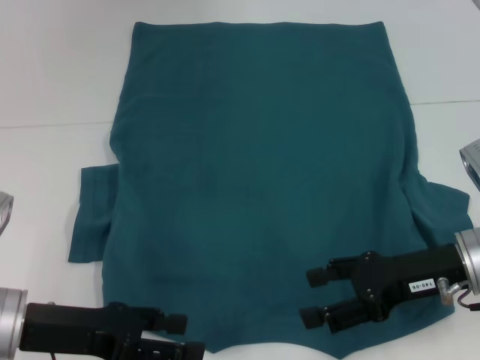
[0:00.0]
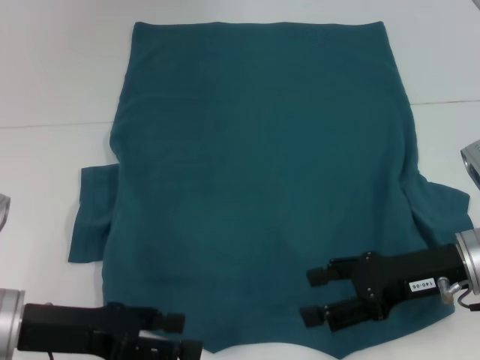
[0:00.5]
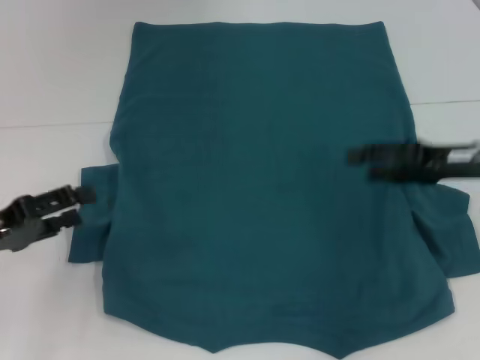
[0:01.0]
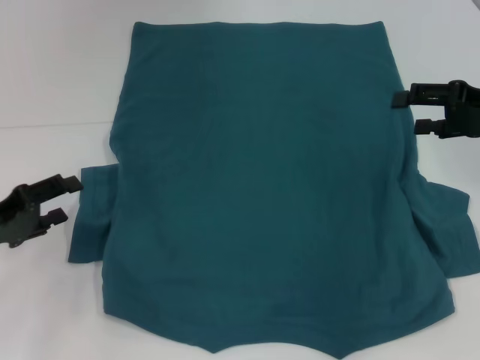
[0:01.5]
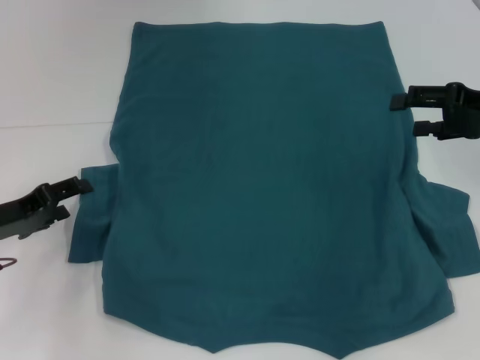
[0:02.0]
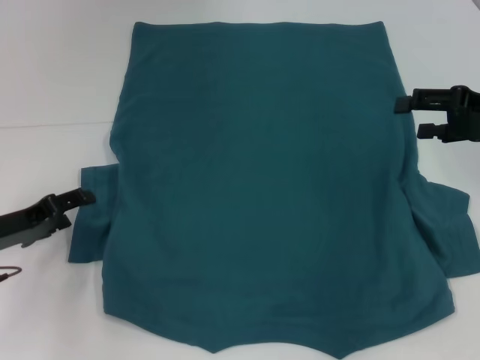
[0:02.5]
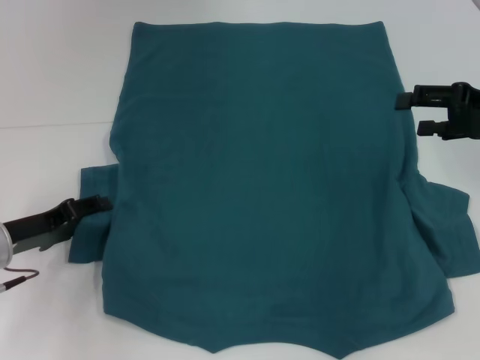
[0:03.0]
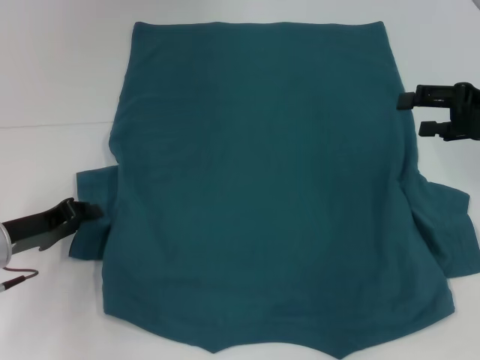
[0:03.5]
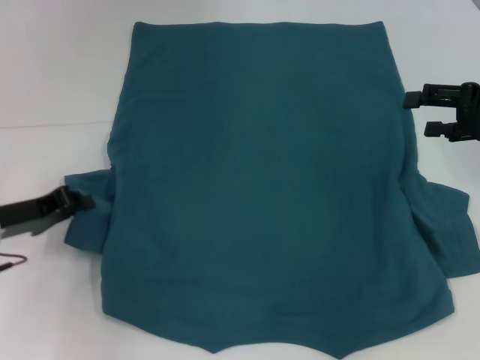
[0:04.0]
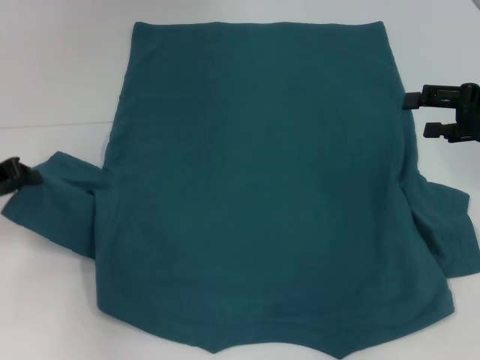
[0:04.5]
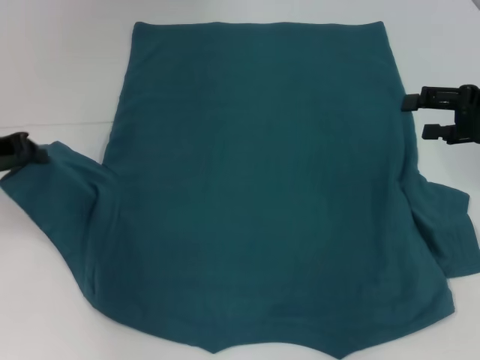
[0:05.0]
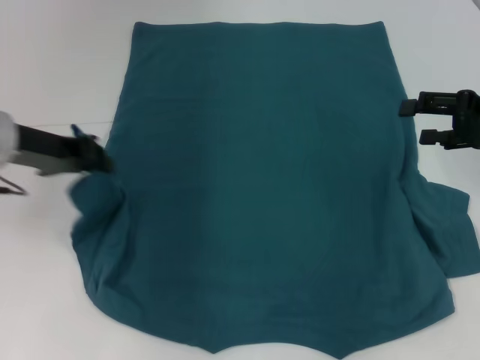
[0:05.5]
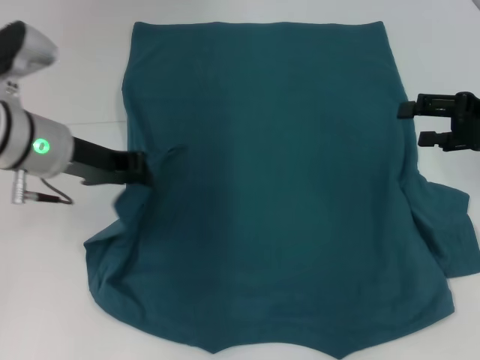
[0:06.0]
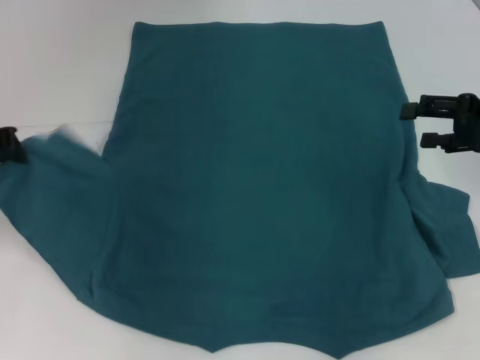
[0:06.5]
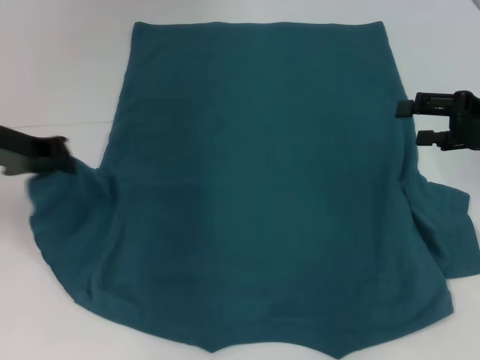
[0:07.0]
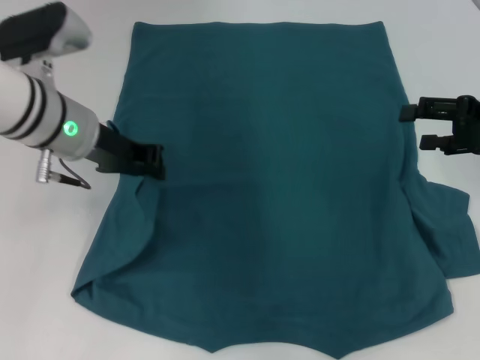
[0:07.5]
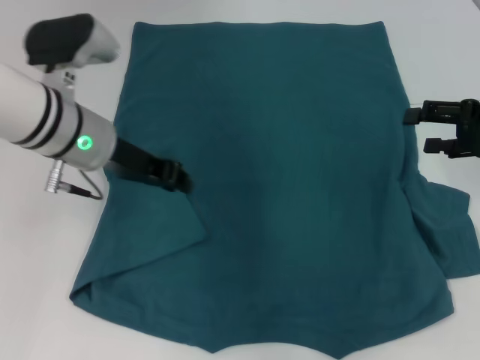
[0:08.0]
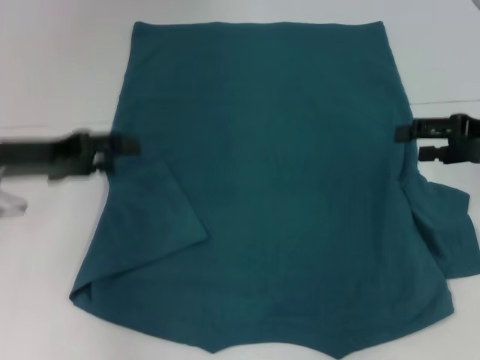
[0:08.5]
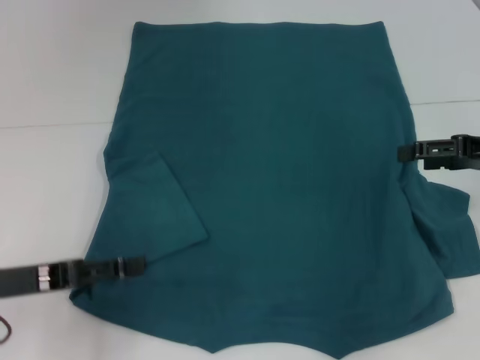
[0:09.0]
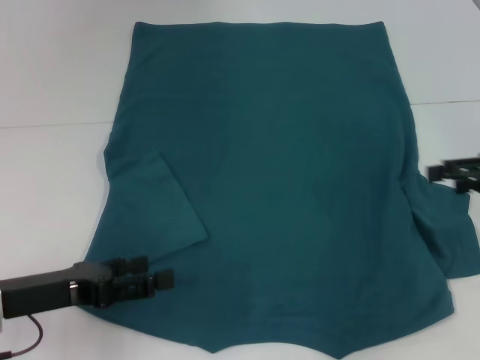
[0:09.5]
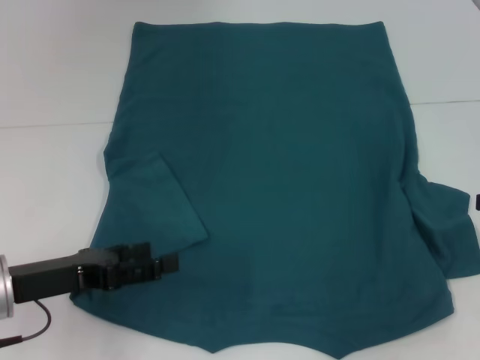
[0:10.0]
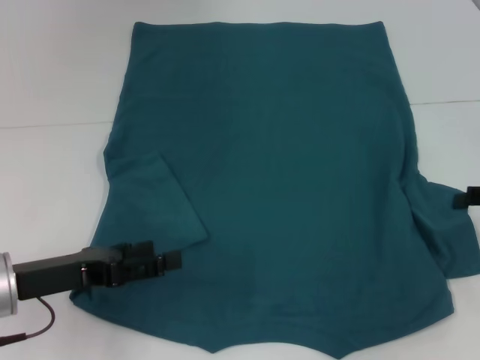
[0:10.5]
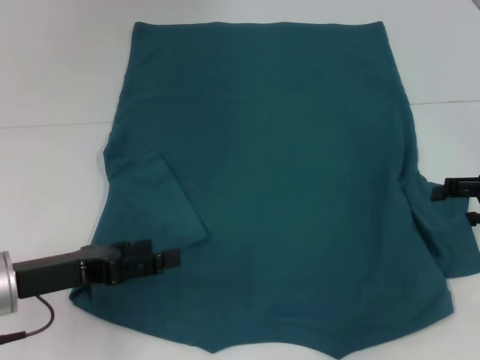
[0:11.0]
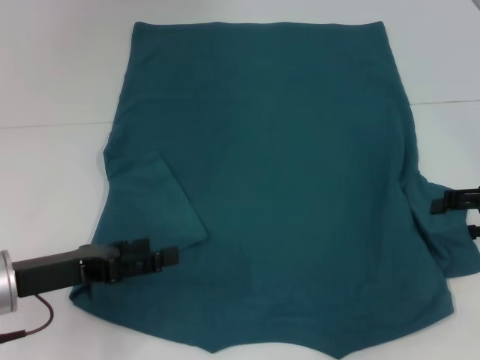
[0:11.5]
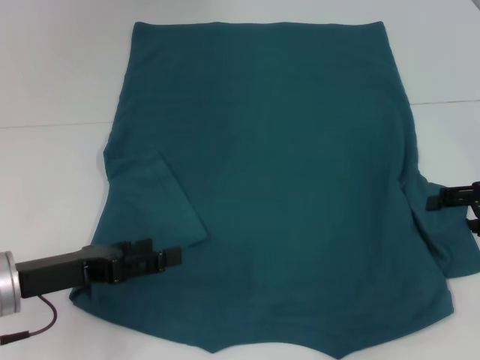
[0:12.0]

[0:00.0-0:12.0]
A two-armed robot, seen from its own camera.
Step, 0:00.0 to 0:07.5: Fold the bottom left sleeve with your left hand.
0:00.0 to 0:02.0: The right gripper shifts approximately 15 cm to the right, forward and upward; the left gripper goes about 10 cm forward and to the left.
0:02.0 to 0:04.0: The left gripper closes.
0:04.0 to 0:06.0: The left gripper is displaced upward and to the right by some 15 cm.
0:06.0 to 0:08.0: The left gripper goes to the left and returns, roughly 10 cm each way.
0:08.0 to 0:10.0: The right gripper shifts approximately 10 cm to the right and backward, while the left gripper shifts about 20 cm backward, to the left and downward, and opens up.
0:10.0 to 0:12.0: The right gripper changes place by some 5 cm.

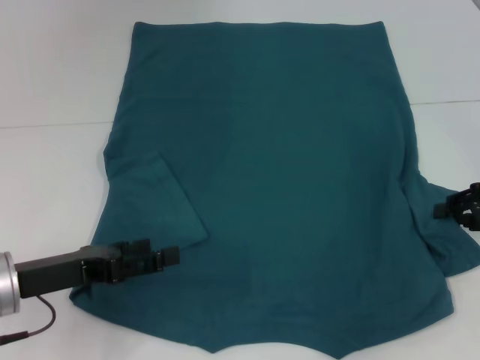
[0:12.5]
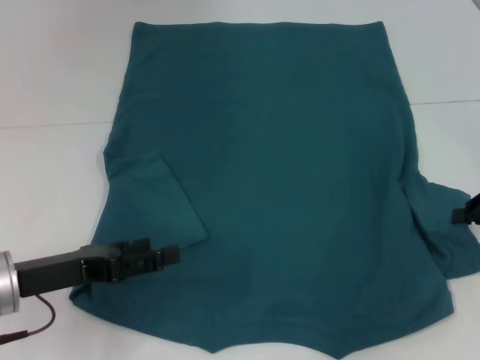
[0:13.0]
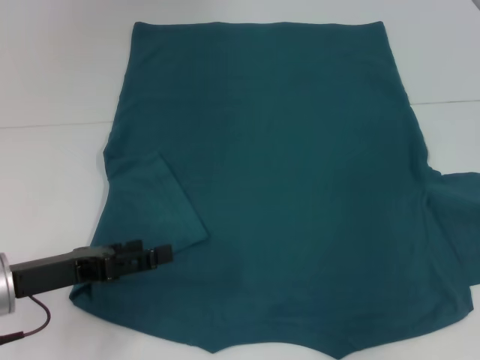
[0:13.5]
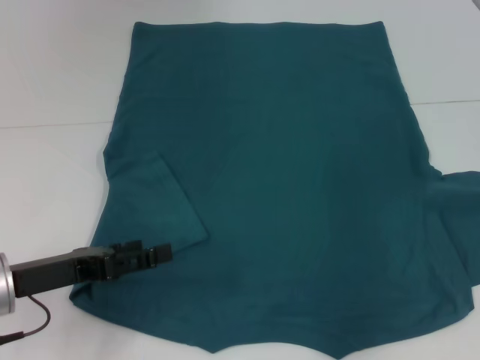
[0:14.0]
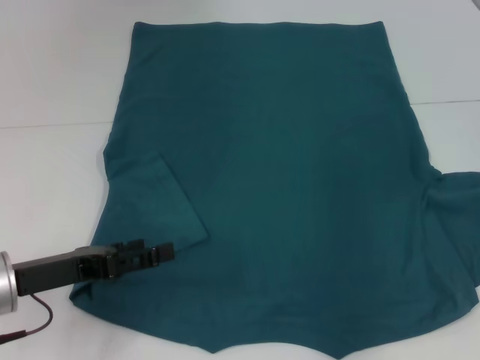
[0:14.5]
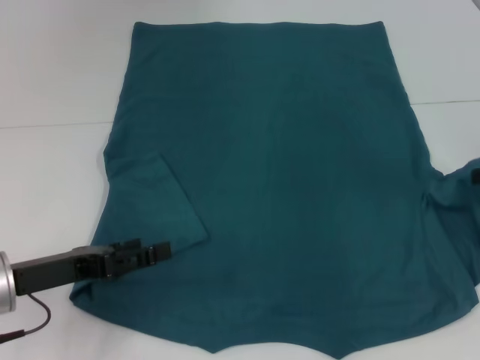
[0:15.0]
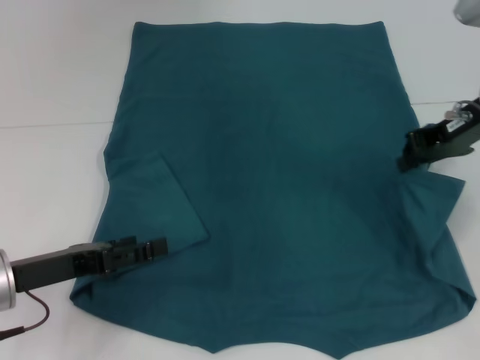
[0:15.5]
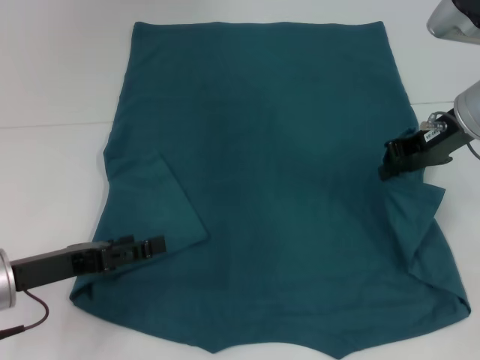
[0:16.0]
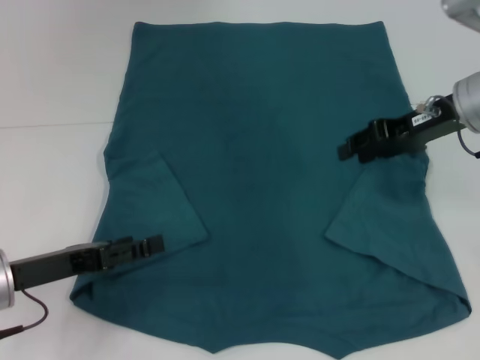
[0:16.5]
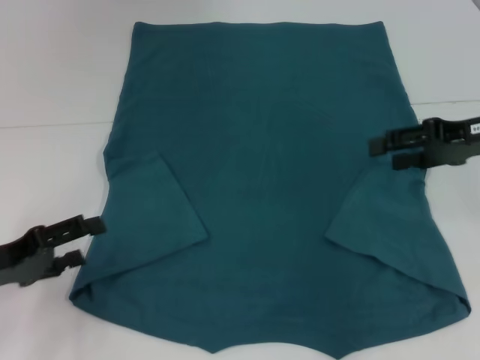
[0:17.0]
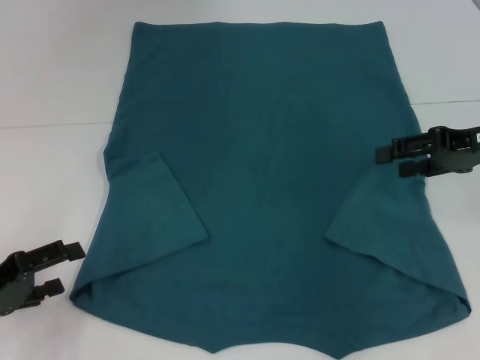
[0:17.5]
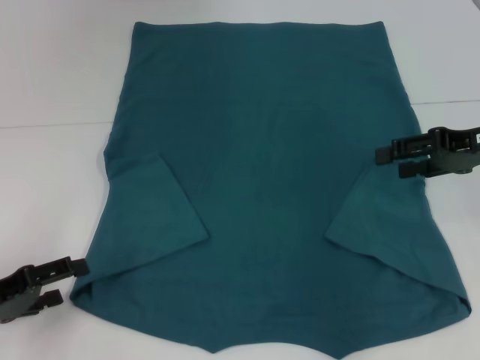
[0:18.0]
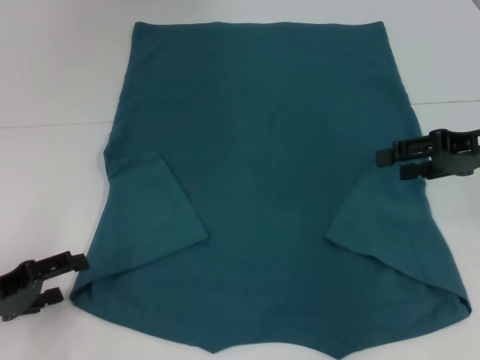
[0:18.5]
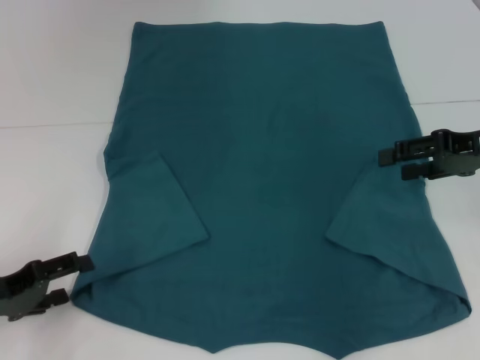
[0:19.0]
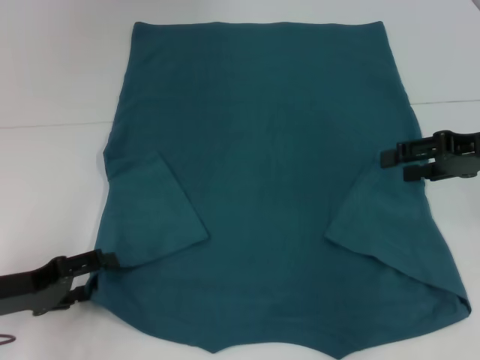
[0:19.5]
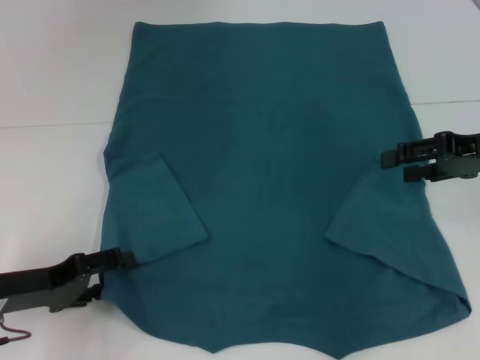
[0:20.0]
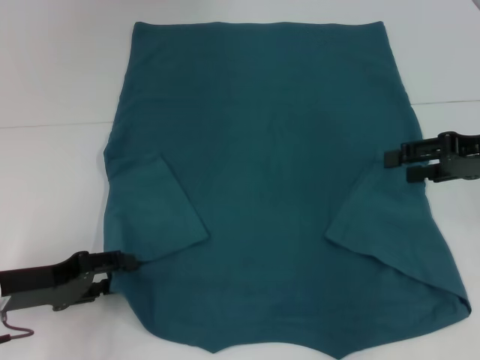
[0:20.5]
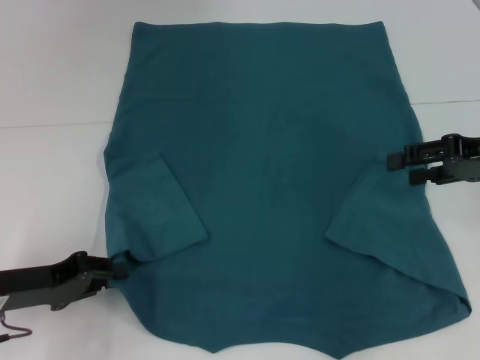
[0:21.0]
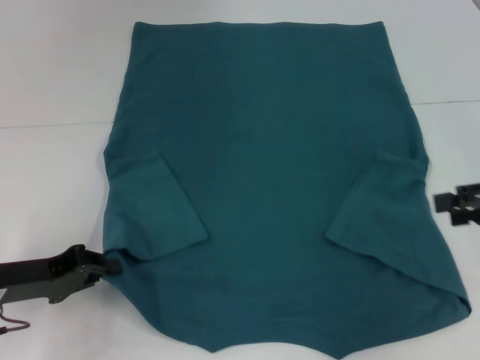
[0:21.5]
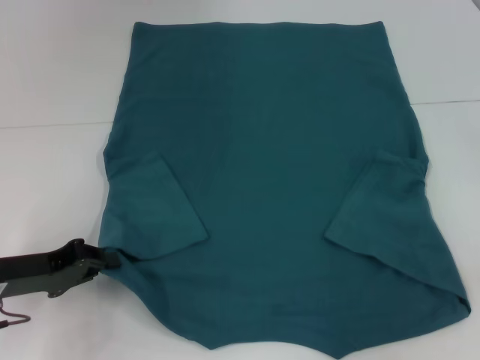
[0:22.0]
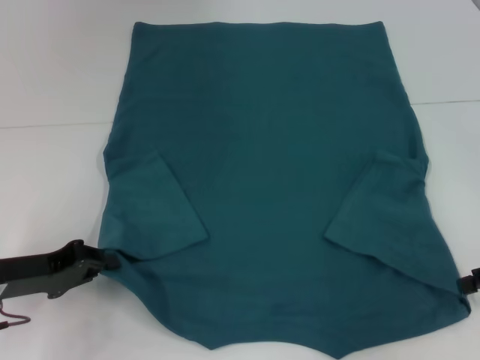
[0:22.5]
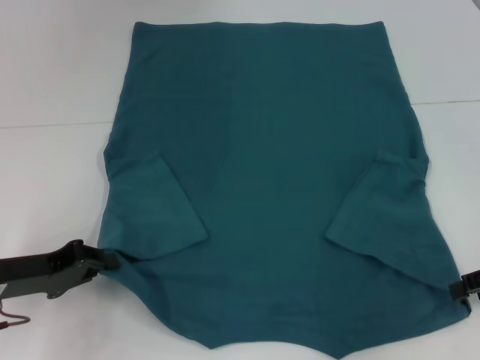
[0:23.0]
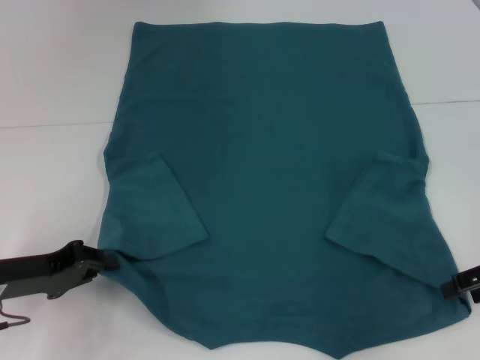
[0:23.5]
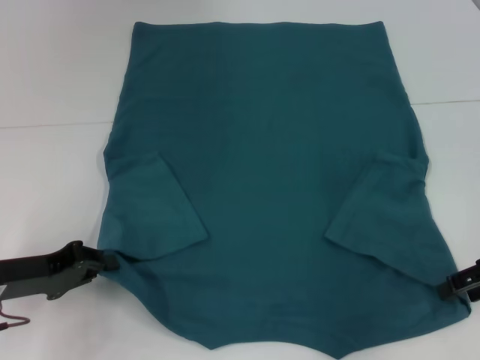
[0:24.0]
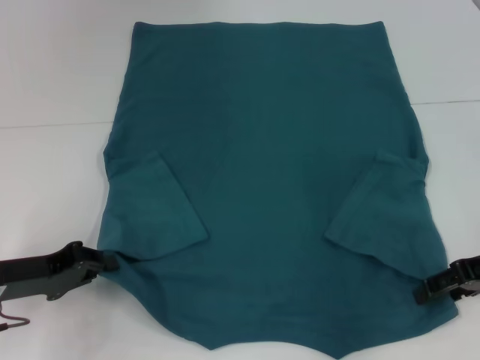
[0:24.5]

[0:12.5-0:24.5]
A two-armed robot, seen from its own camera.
Step, 0:12.5 to 0:16.0: Fold the bottom right sleeve to the right.
Step, 0:16.5 to 0:21.0: Grab the bottom left corner with your left hand.
0:12.5 to 0:14.5: The right gripper shifts by some 5 cm, and closes up.
0:14.5 to 0:16.5: The right gripper heads to the left, covering approximately 15 cm, and opens up.
0:16.5 to 0:18.5: The left gripper shifts about 5 cm to the left; the right gripper moves to the right, approximately 5 cm, and opens up.
0:18.5 to 0:20.5: There are only small adjustments of the grippers.
0:20.5 to 0:22.5: The left gripper closes its fingers; the right gripper goes some 10 cm backward and to the right.
0:22.5 to 0:24.5: The right gripper travels to the left by some 5 cm.

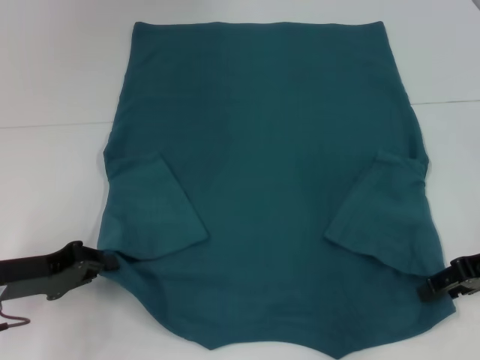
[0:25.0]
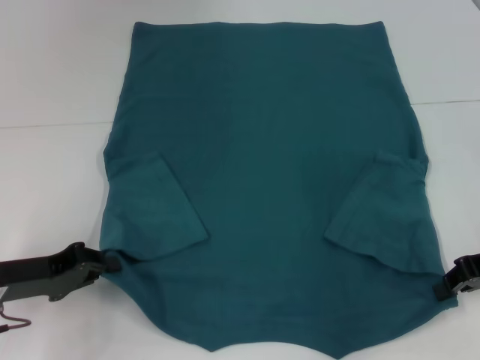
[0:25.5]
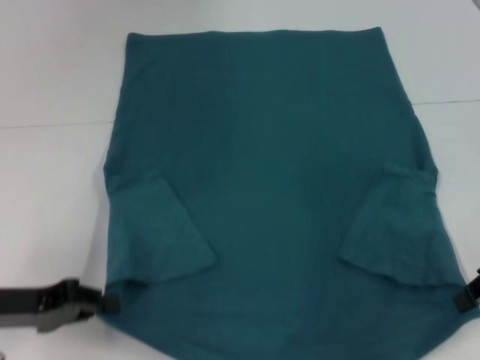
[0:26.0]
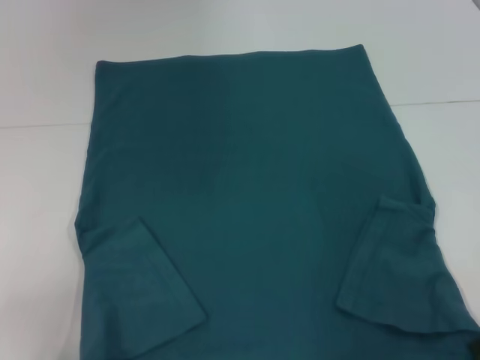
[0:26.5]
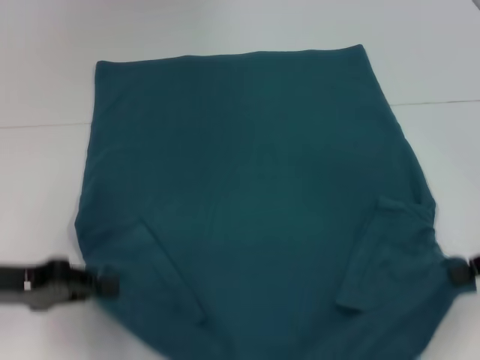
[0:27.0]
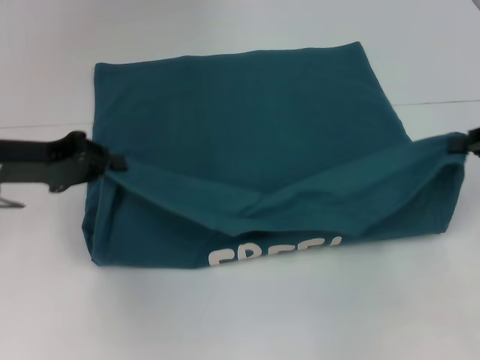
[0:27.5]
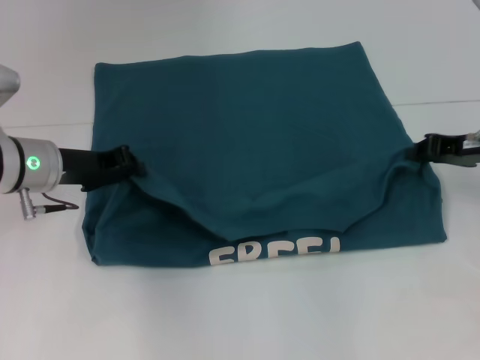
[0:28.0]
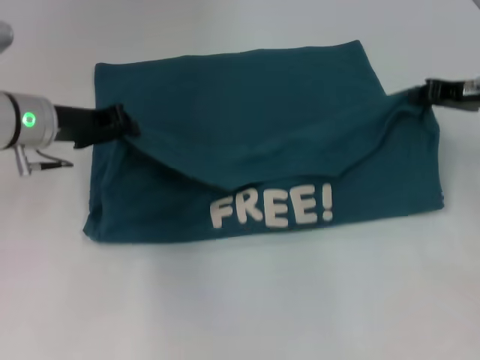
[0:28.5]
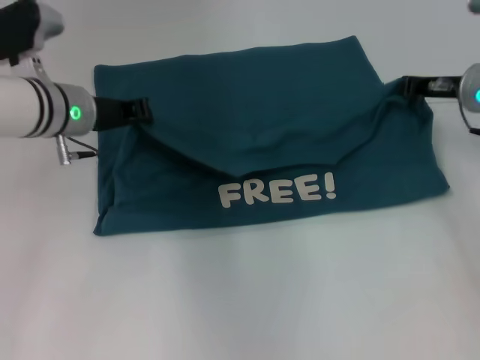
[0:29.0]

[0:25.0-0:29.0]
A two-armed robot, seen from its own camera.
0:25.0 to 0:27.0: The left gripper shifts approximately 5 cm upward. Meanwhile the right gripper moves about 5 cm, and closes.
0:27.0 to 0:29.0: The left gripper is displaced forward and to the right by some 20 cm, while the right gripper moves forward and to the left, about 15 cm.
